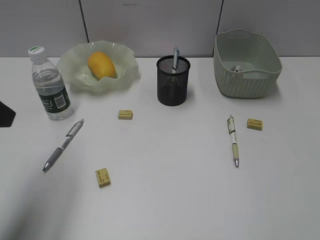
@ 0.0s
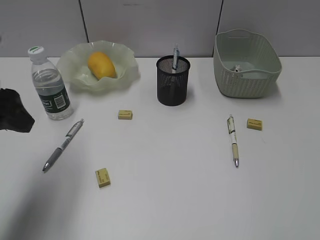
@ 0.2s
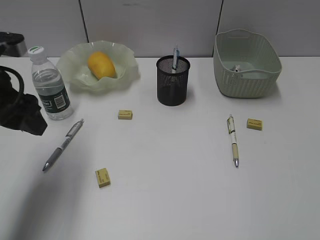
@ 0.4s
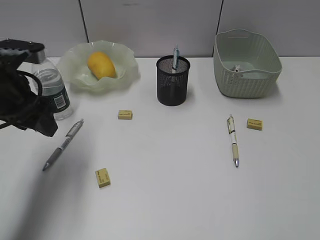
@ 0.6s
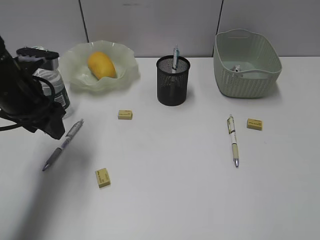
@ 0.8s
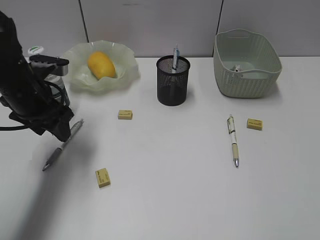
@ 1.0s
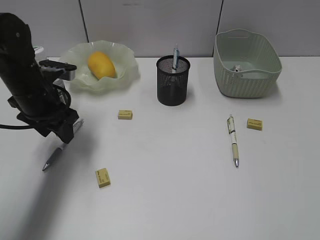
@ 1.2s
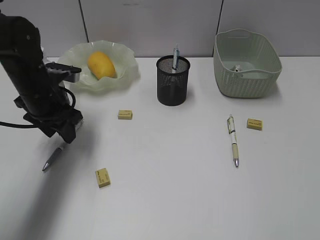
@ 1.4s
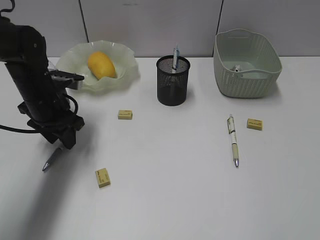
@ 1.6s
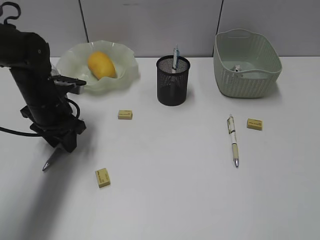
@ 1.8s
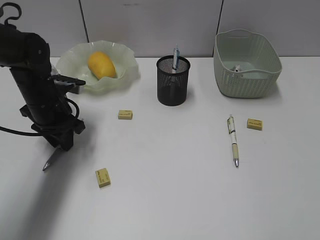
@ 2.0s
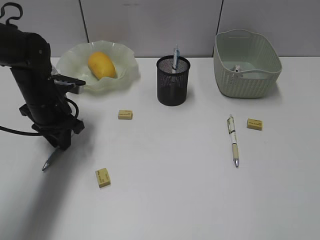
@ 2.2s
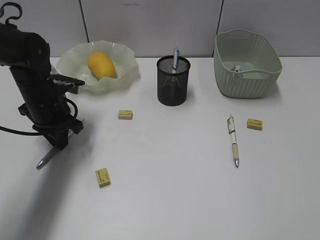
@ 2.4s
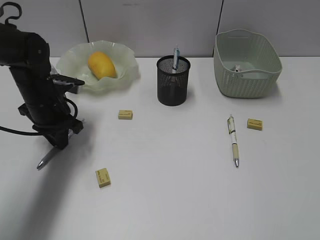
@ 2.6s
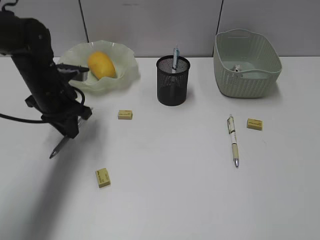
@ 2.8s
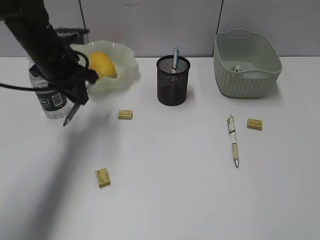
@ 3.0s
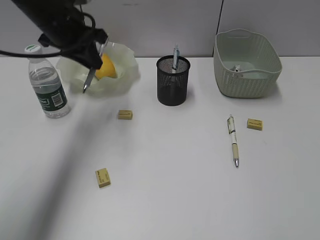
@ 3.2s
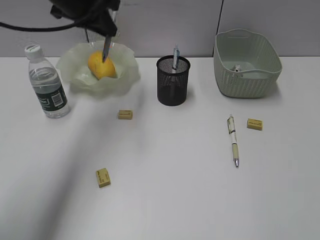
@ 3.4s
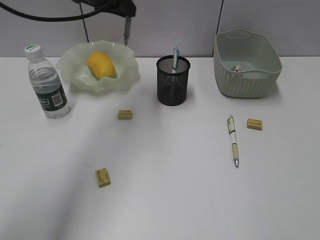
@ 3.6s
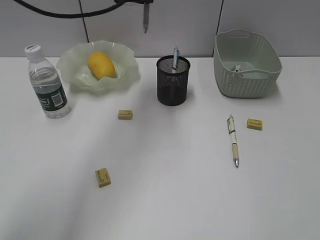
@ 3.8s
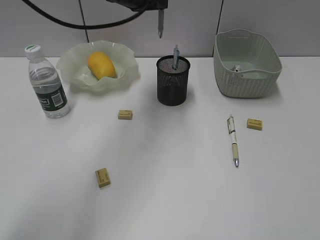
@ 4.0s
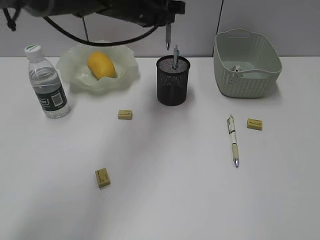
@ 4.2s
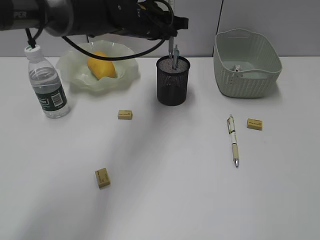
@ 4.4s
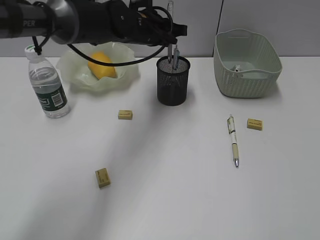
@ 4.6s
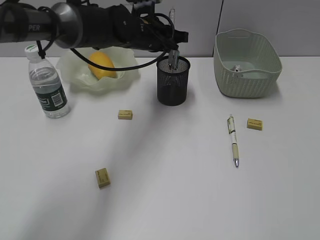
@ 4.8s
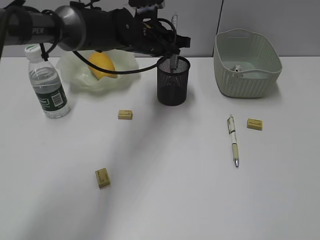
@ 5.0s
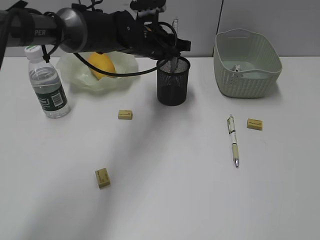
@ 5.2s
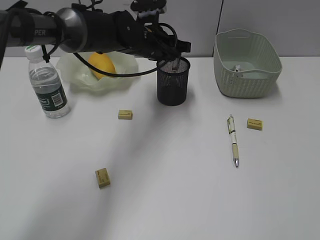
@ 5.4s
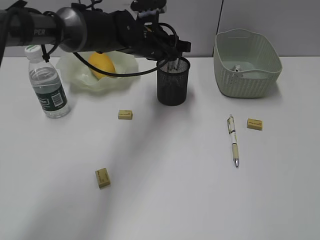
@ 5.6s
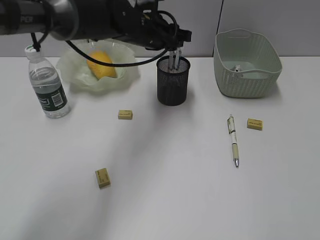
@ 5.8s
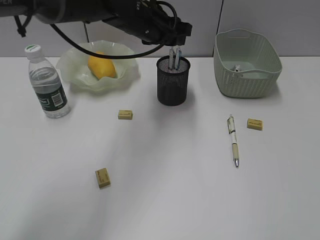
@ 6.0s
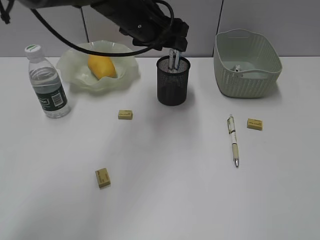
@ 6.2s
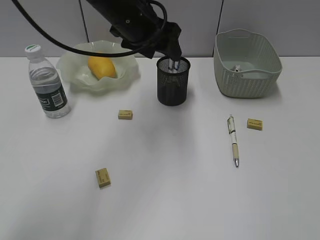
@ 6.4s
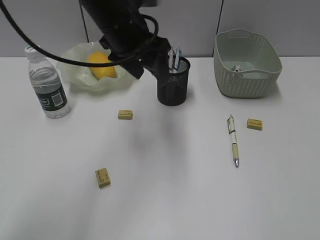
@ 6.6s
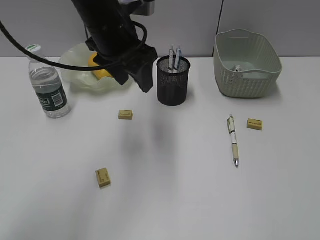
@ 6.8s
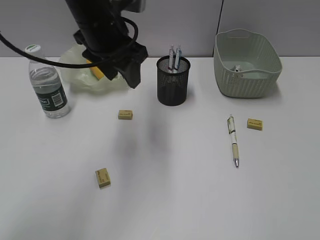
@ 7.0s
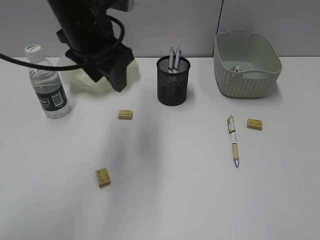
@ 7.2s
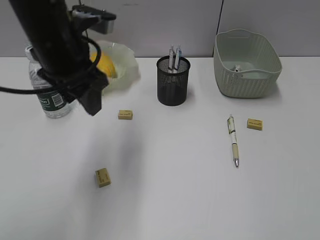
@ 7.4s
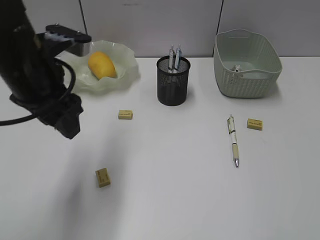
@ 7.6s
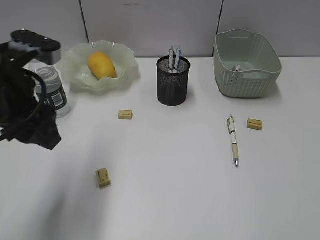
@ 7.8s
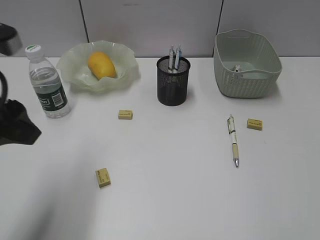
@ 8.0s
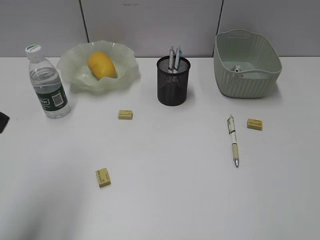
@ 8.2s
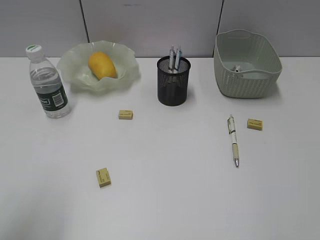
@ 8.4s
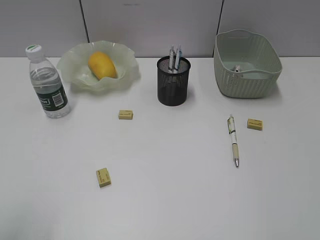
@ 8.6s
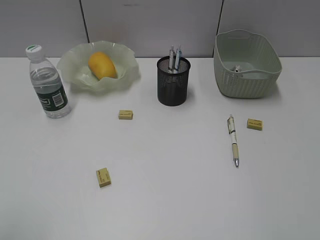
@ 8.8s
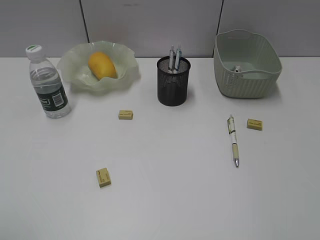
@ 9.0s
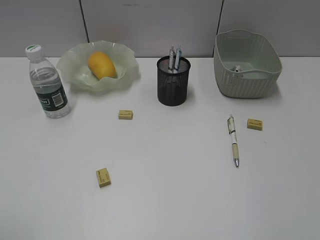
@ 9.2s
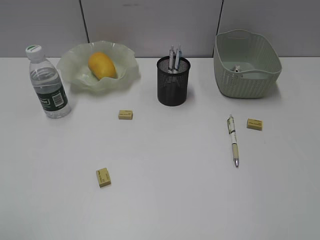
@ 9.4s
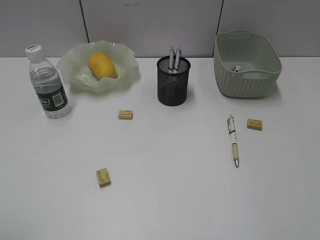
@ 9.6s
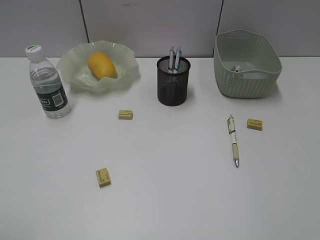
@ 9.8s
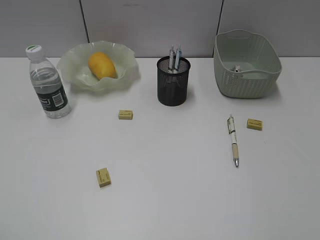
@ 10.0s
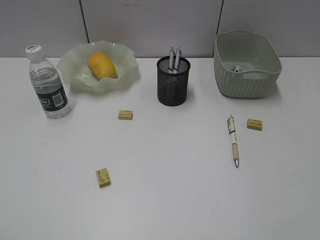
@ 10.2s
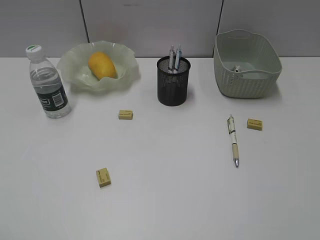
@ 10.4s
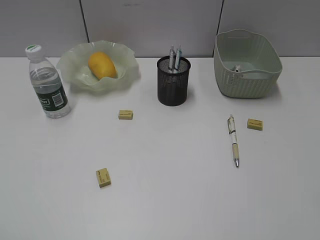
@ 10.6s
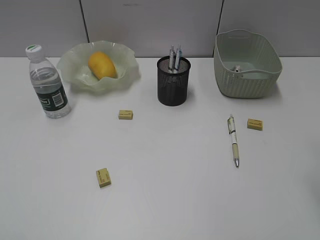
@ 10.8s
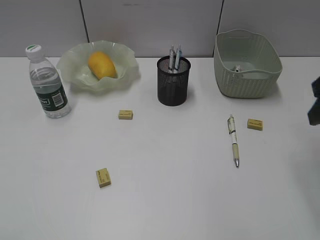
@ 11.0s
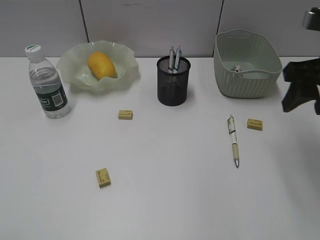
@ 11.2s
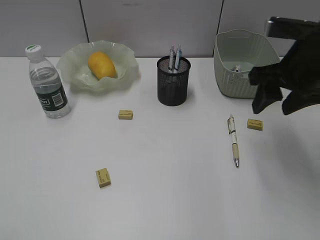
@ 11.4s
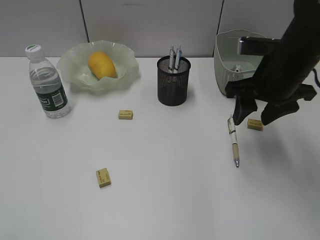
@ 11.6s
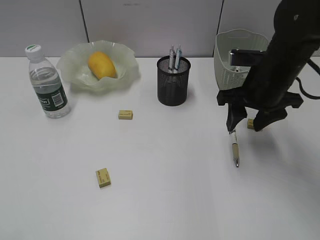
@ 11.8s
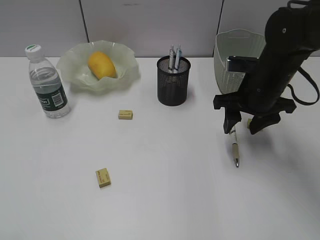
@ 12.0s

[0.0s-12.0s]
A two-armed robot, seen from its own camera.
Step, 0.0s to 2.4s: Grasp the gray pen with left gripper.
Step, 2.6s to 5.8s: Place the gray pen in pen holder with left gripper.
0.0s to 1.6s: The left gripper goes roughly 25 cm forward and downward.
1.6s to 3.0s: The left gripper heads upward, covering approximately 5 cm, and closes its fingers.
3.0s to 4.4s: The left gripper moves to the right, roughly 15 cm.
4.4s to 6.0s: The left gripper opens up.
6.0s to 7.6s: The left gripper travels backward and to the left by some 20 cm.
7.6s to 9.0s: The left gripper is displaced backward and to the left by some 30 cm.
10.4s to 12.0s: The right gripper moves forward, downward and to the left, about 30 cm.

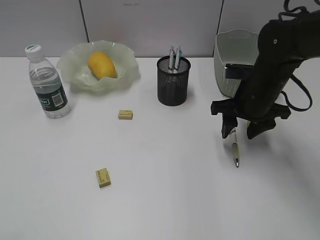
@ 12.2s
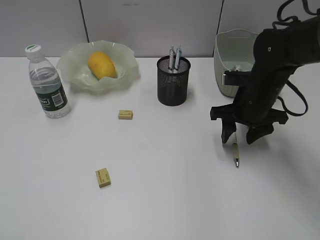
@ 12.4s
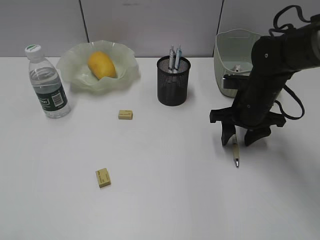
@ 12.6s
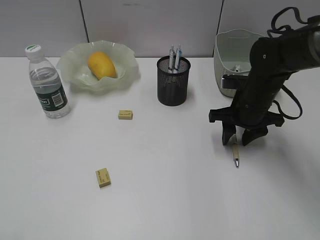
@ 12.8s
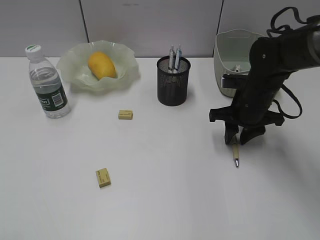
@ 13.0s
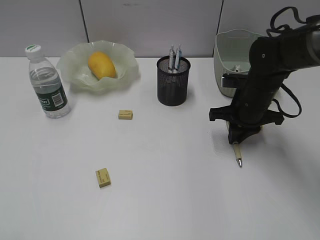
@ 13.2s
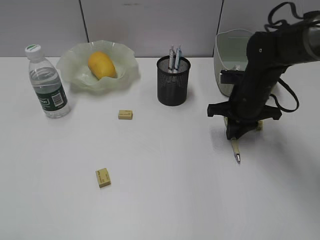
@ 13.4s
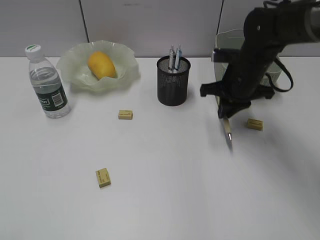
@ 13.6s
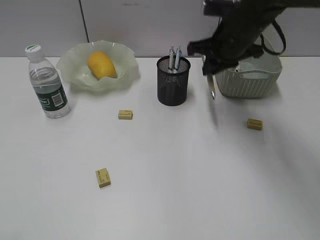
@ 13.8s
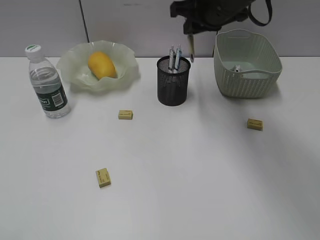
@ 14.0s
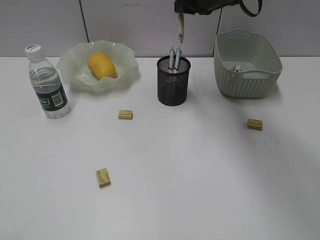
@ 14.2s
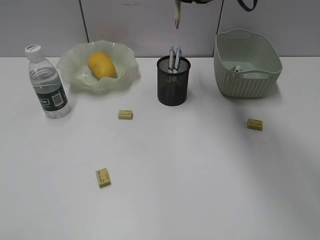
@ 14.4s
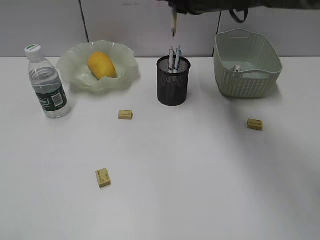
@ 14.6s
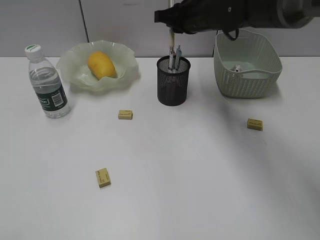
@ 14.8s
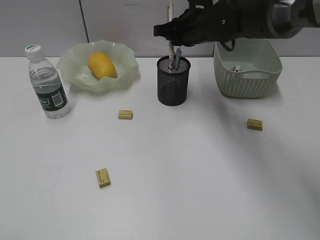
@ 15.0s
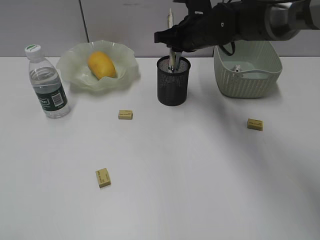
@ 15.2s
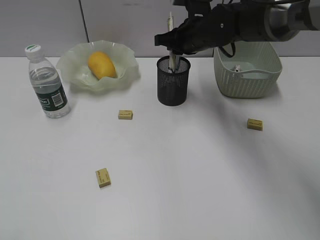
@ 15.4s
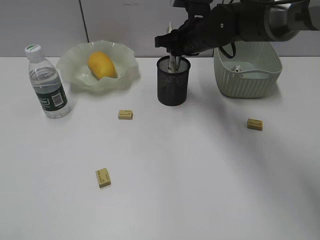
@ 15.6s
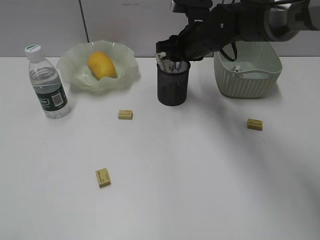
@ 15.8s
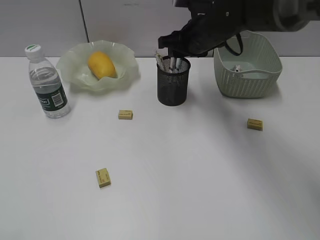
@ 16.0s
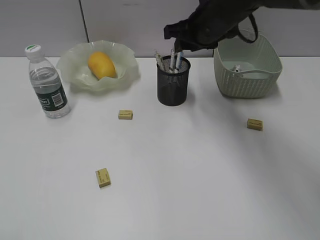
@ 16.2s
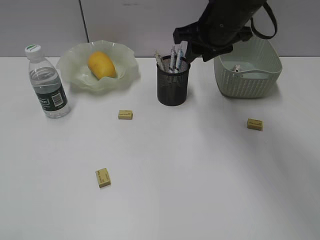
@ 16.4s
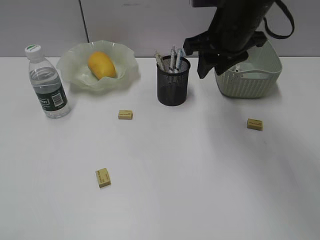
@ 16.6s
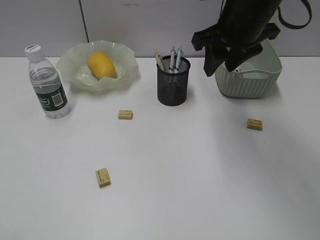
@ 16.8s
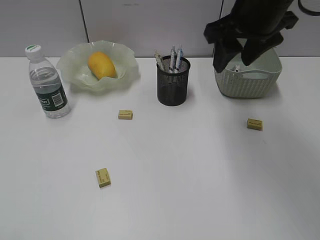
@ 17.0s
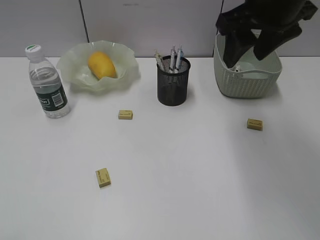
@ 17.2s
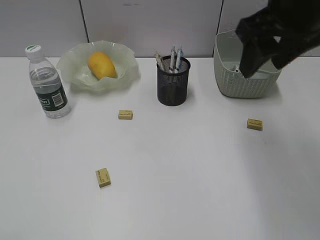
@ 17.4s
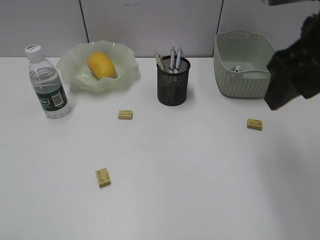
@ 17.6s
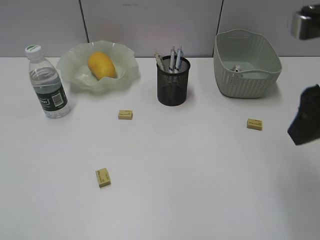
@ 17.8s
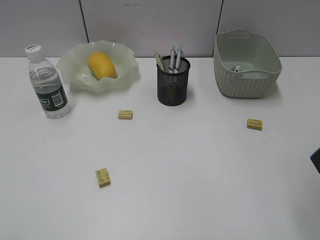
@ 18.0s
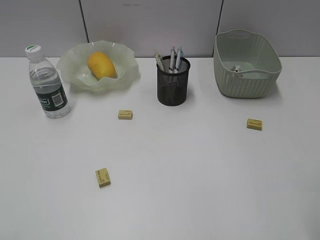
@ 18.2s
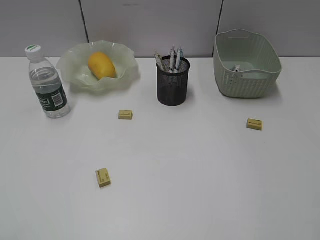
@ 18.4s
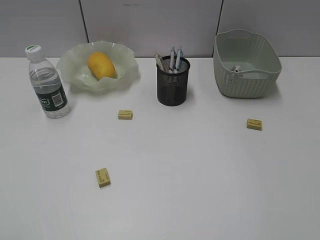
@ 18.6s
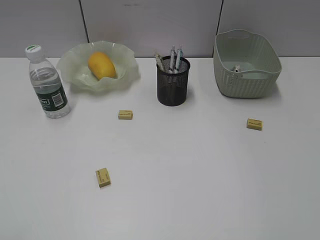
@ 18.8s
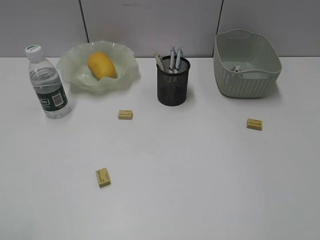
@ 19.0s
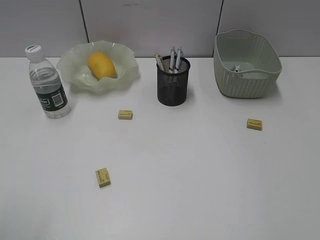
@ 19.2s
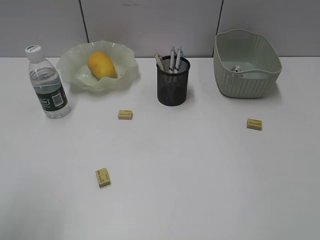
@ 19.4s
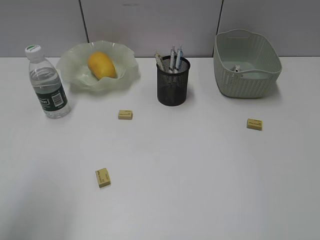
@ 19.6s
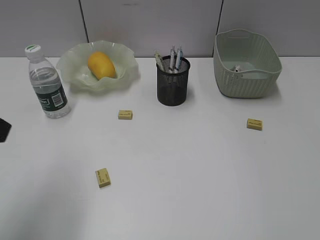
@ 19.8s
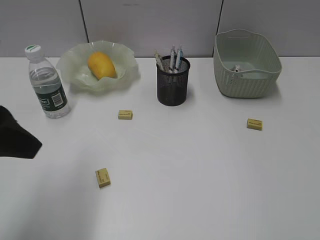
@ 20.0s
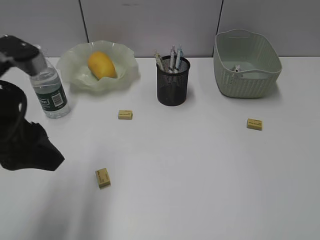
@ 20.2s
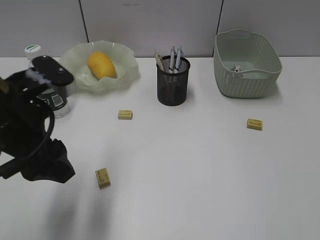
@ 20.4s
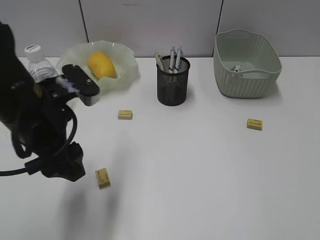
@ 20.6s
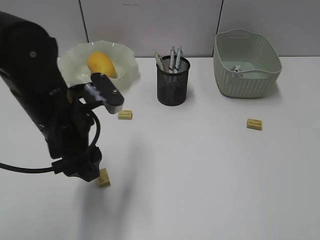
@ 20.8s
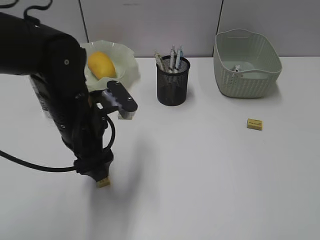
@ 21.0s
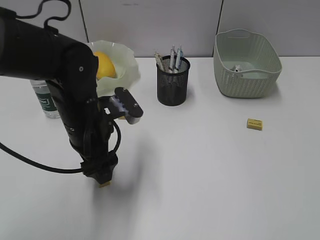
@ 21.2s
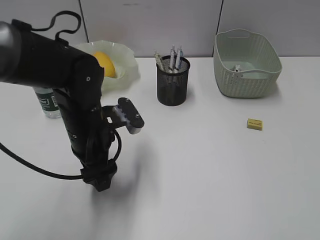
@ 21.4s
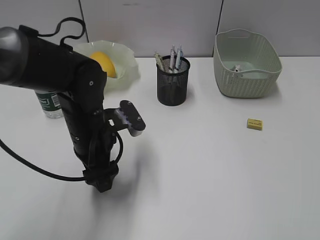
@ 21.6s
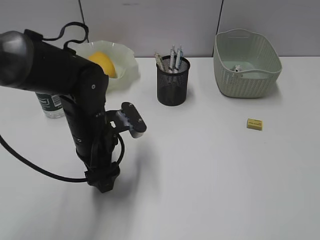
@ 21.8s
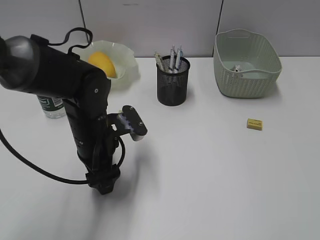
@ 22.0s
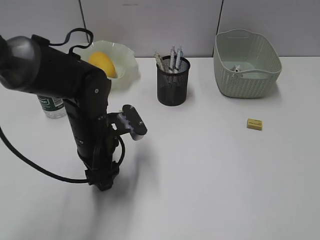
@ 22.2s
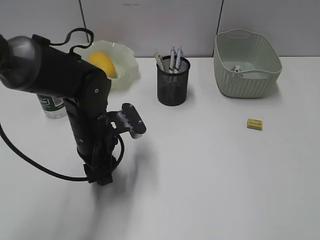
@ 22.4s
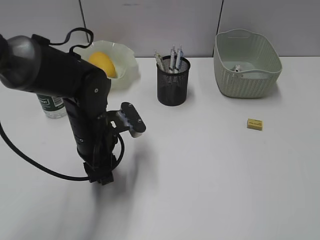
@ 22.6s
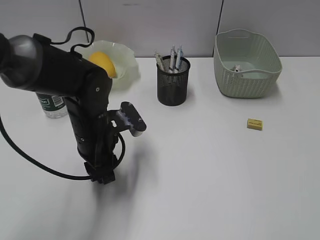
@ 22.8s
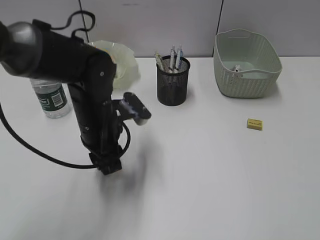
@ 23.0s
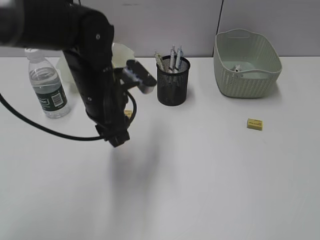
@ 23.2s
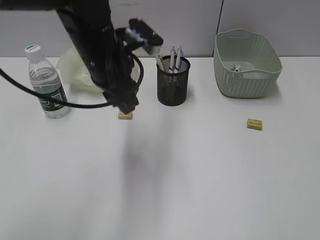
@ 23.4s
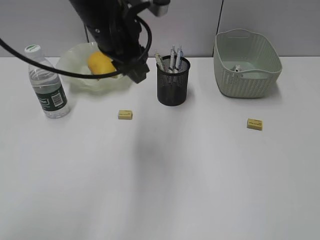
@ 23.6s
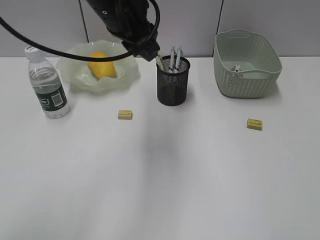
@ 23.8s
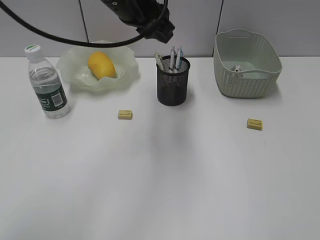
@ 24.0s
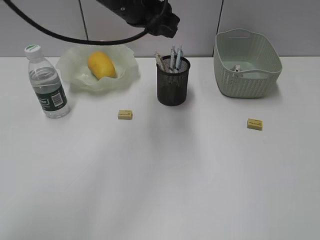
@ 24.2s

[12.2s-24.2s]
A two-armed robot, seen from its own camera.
Step, 13.4s to 16.0s: Place the yellow pen in pen holder with right gripper.
Step, 16.2s to 22.6s: Grasp the eraser with left gripper.
12.2s to 13.8s: The right gripper is displaced upward and forward by some 10 cm, and closes up.
13.8s to 15.2s: The right gripper travels to the left by approximately 5 cm, and moves about 10 cm upward and comes back.
15.2s to 16.6s: The right gripper is displaced backward and upward by about 10 cm, and opens up.
16.6s to 18.2s: The right gripper moves backward and to the right, roughly 30 cm, and opens.
18.2s to 19.8s: The left gripper shifts approximately 15 cm forward and to the right.
19.8s to 21.2s: The left gripper is displaced downward, to the right and forward by some 25 cm.
21.2s to 22.6s: The left gripper closes its fingers.
22.6s to 24.2s: The left gripper heads upward and forward, covering some 20 cm.
